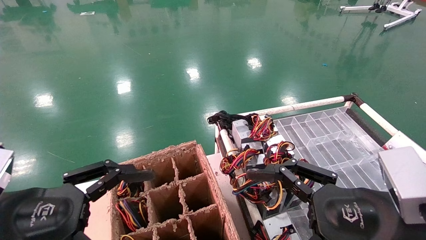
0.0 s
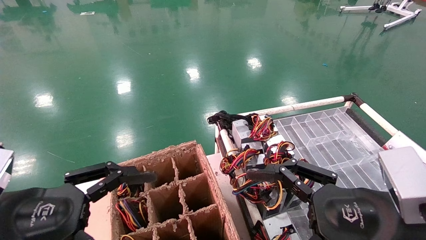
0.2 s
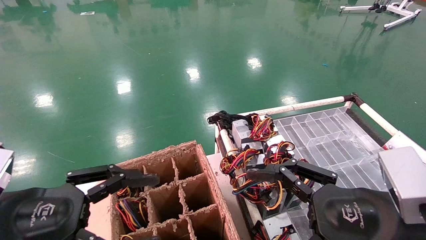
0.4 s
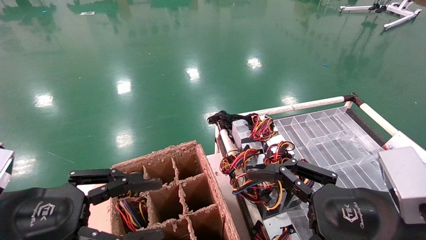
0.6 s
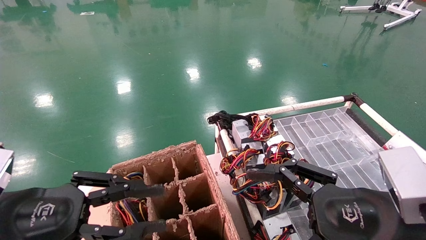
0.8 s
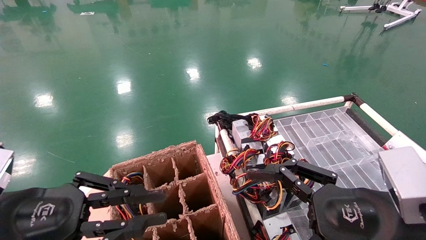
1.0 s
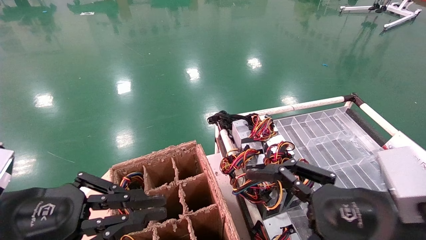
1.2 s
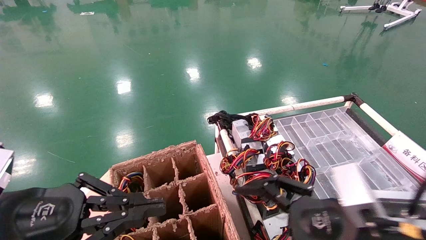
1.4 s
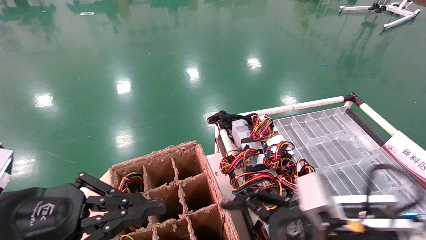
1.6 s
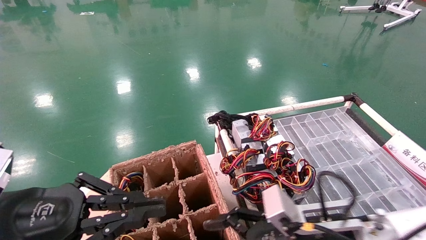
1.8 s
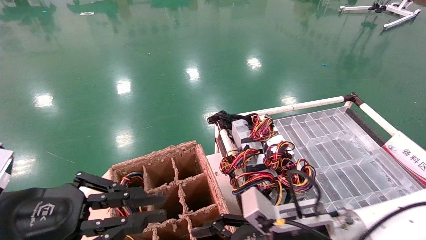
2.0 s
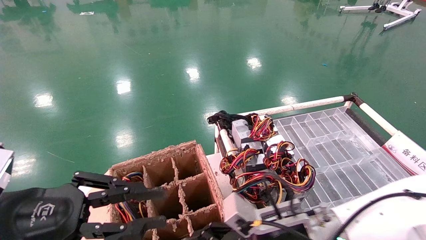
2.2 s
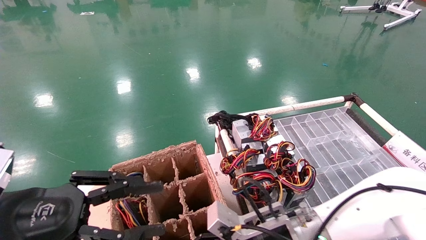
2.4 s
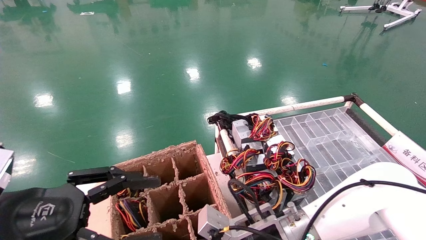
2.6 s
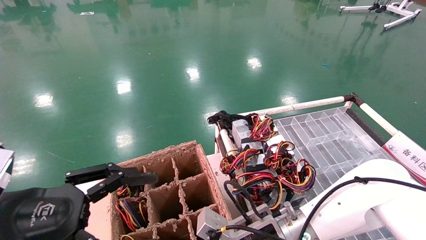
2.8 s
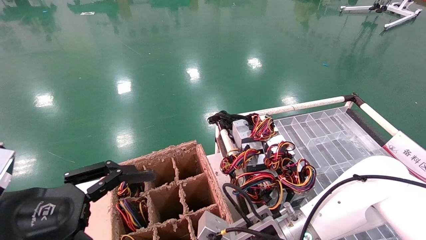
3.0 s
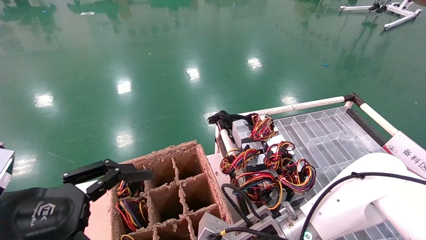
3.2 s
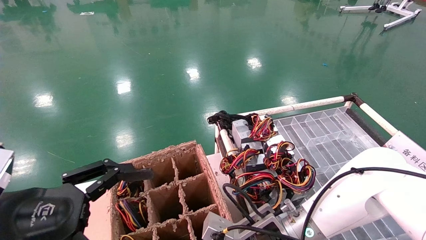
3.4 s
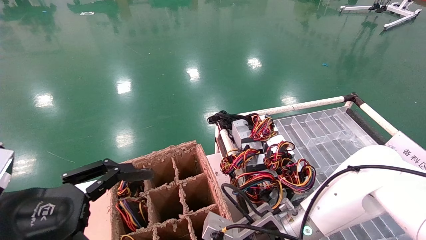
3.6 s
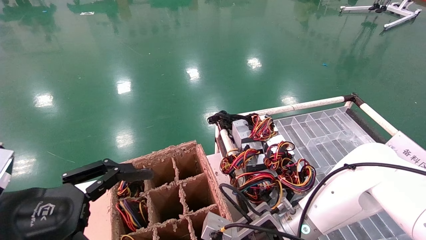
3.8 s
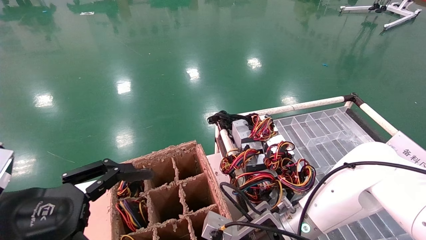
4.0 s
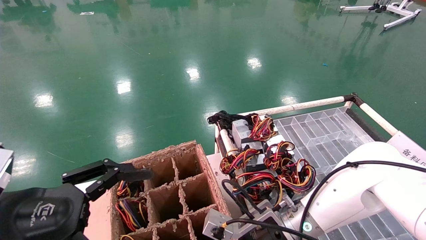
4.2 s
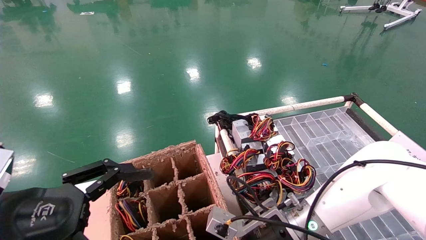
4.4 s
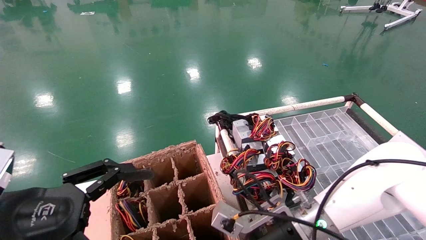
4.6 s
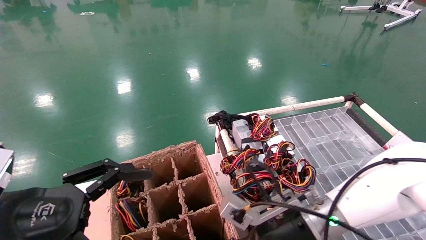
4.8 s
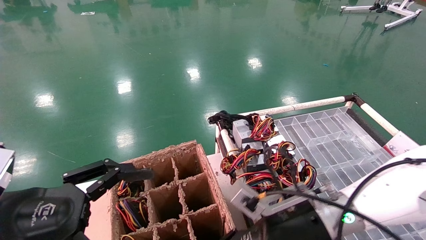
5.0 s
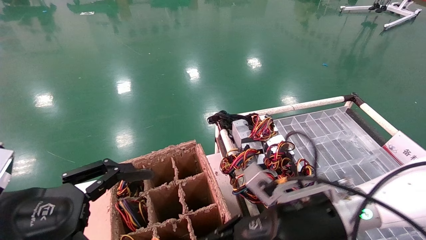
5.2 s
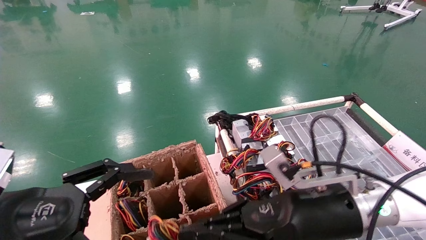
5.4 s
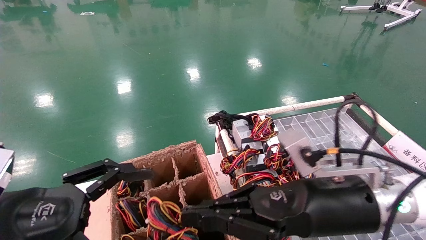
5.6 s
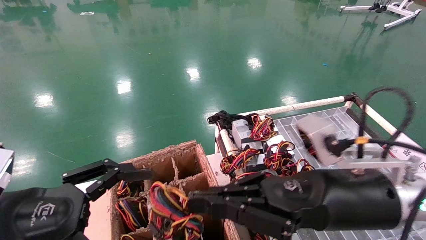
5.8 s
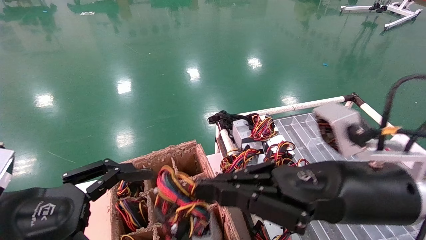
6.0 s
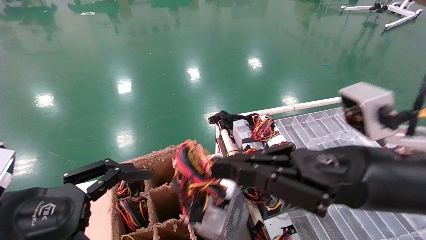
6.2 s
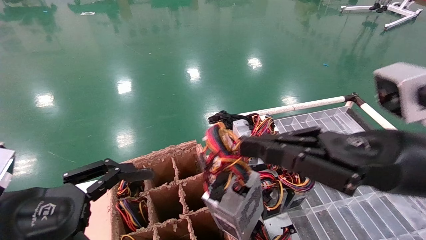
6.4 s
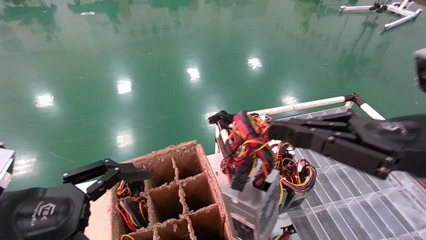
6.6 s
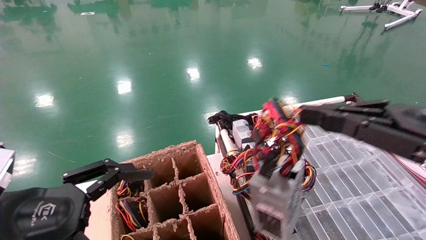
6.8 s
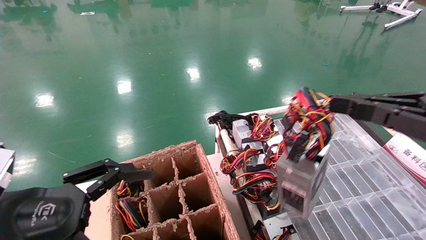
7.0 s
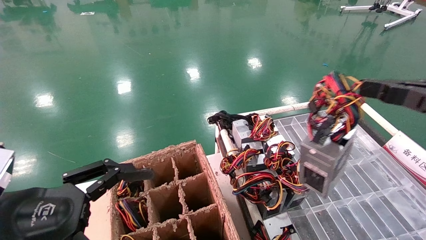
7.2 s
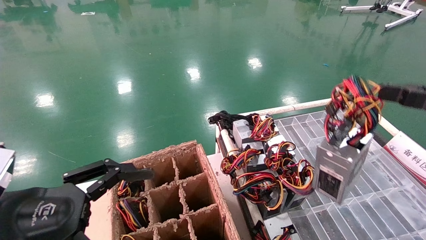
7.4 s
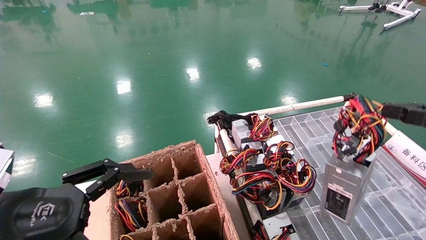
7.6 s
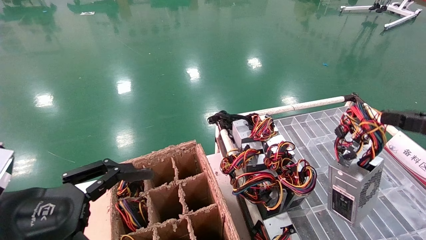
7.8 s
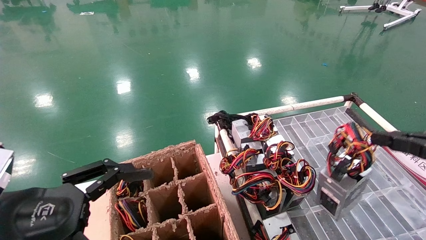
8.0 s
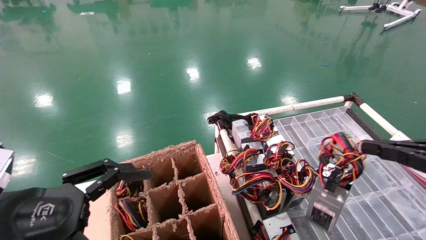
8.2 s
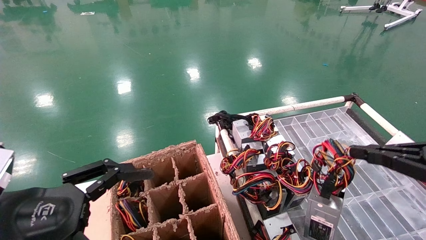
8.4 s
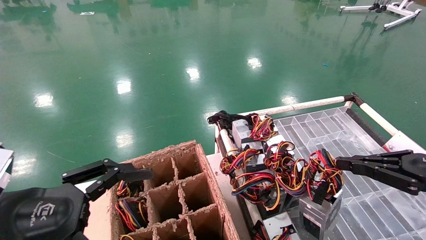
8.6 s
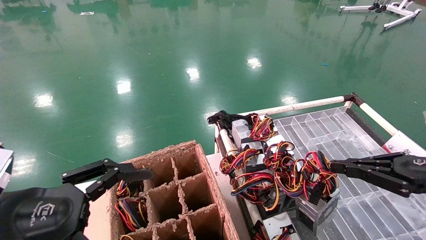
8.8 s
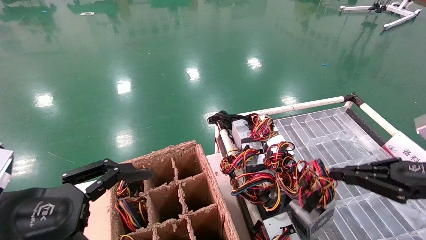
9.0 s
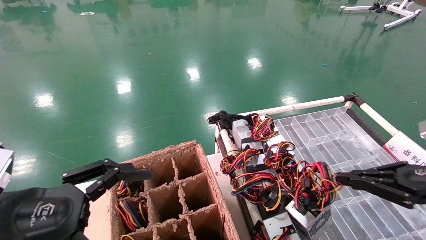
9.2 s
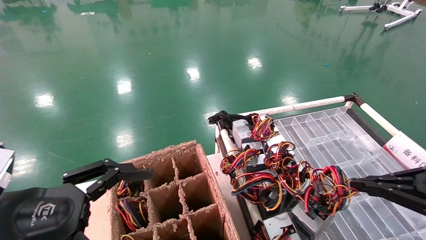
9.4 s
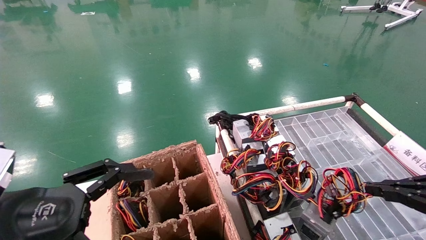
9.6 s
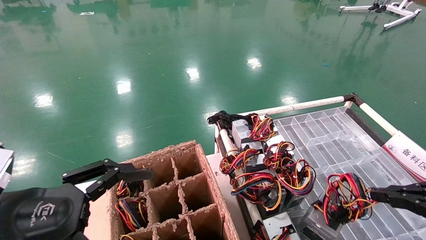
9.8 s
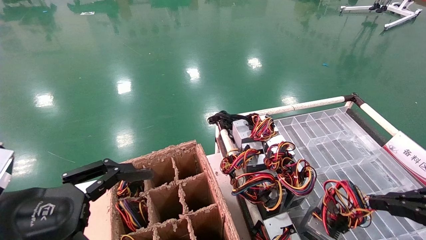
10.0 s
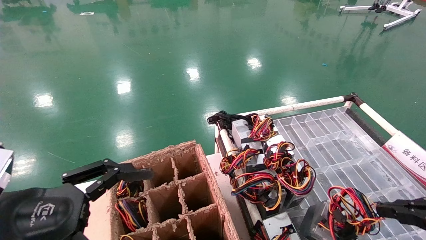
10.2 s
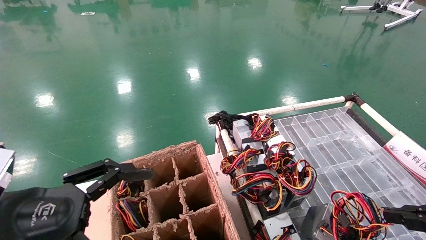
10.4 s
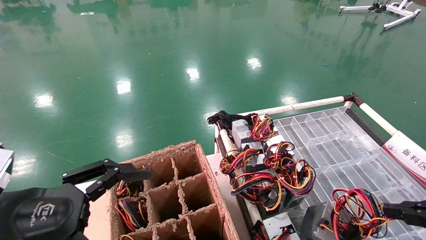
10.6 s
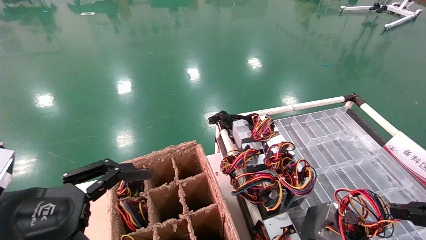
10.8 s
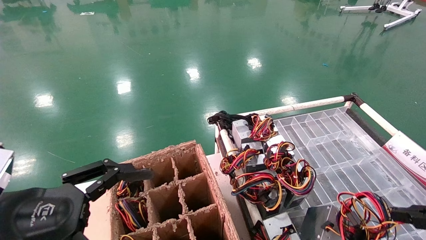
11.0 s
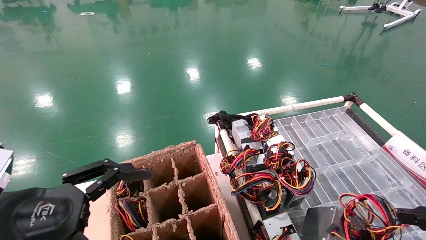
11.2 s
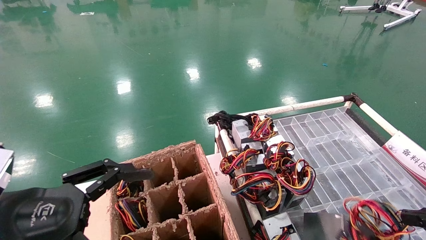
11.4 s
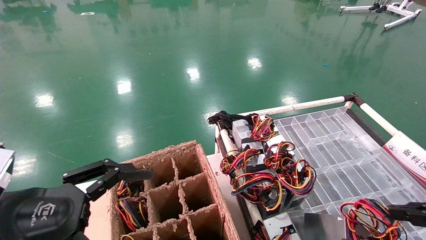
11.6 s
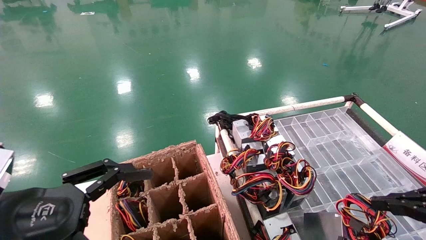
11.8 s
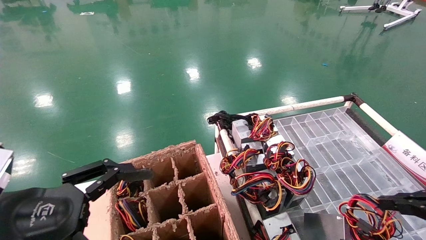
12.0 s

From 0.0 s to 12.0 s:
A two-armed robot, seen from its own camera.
Step, from 0.6 s to 4.2 s: Grab and lift the power supply from the large box.
From 0.0 s to 1.6 s: The right gripper travels forward and downward by about 10 cm; the left gripper closes its fingers.
From 1.6 s to 3.0 s: The right gripper goes about 15 cm to the left, forward and downward. The left gripper opens.
From 3.0 s to 4.4 s: The right gripper closes its fingers.
From 4.4 s to 6.0 s: The right gripper shifts some 15 cm upward, to the right and backward.
From 6.0 s to 7.6 s: The right gripper is displaced to the right by roughly 25 cm.
From 7.6 s to 9.0 s: The right gripper shifts about 10 cm downward and forward.
From 9.0 s to 10.4 s: The right gripper moves backward, some 5 cm.
From 10.4 s to 12.0 s: The grippers make only small movements.

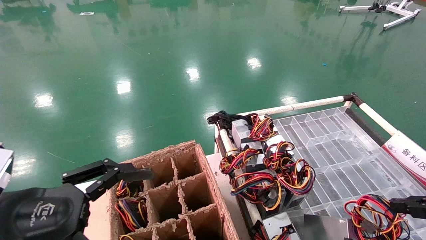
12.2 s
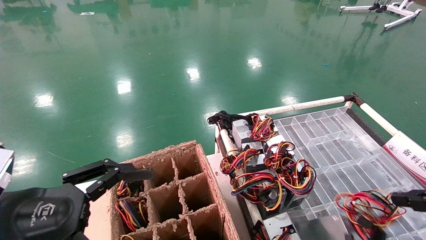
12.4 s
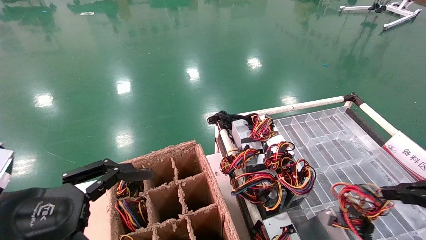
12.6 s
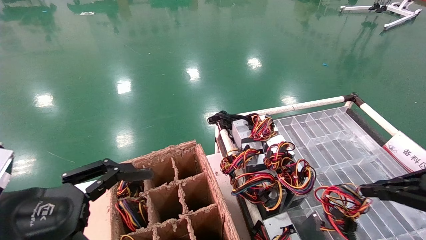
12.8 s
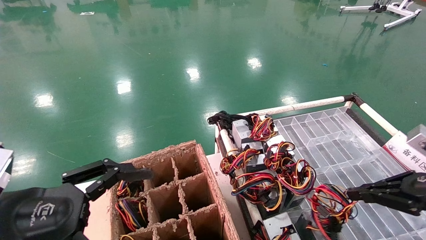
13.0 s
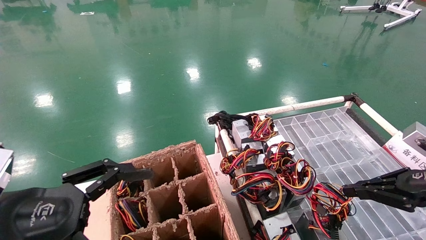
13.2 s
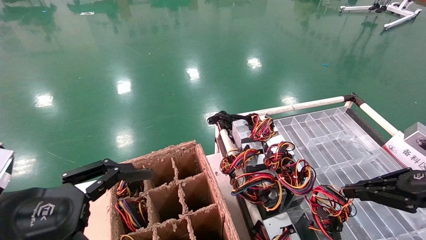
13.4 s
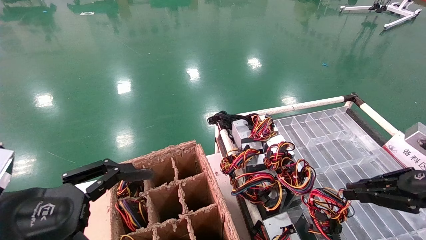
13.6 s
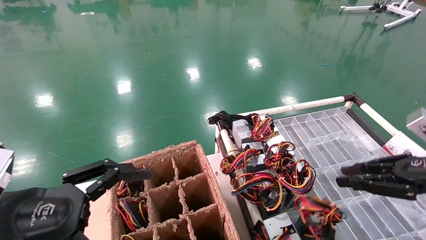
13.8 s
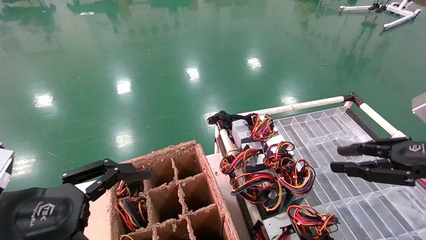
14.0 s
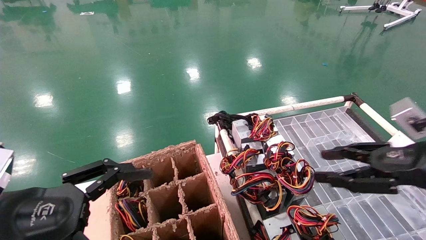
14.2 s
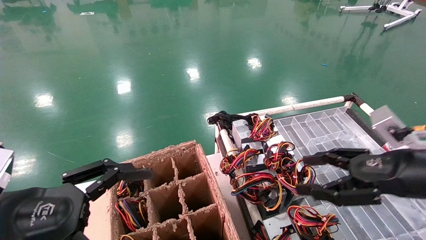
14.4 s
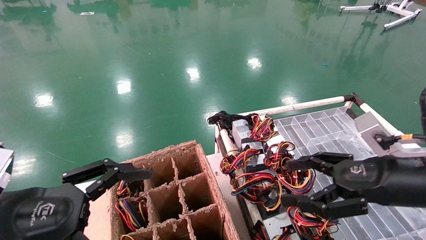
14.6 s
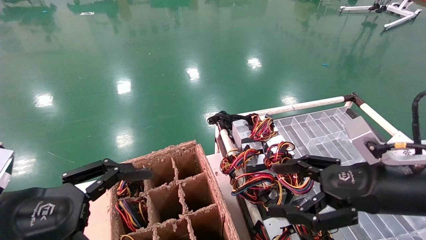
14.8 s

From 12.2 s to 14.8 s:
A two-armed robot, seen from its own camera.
From 12.2 s to 13.4 s: The right gripper moves forward and to the left, about 10 cm.
From 13.4 s to 14.8 s: The right gripper shifts roughly 10 cm to the left, and opens up.

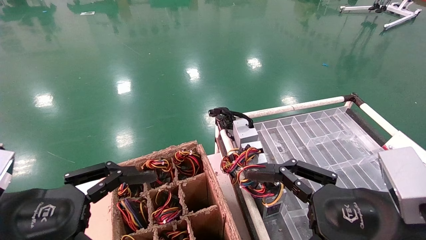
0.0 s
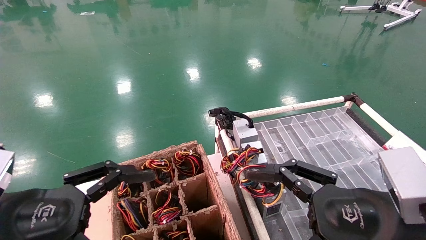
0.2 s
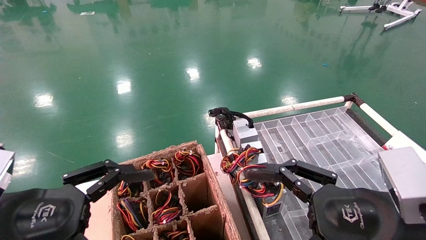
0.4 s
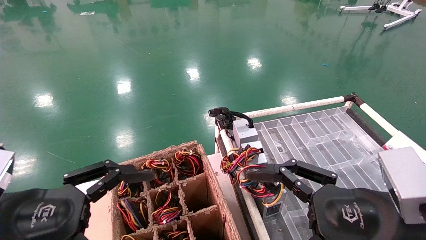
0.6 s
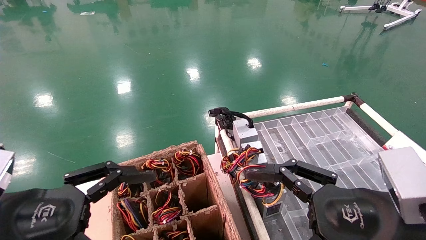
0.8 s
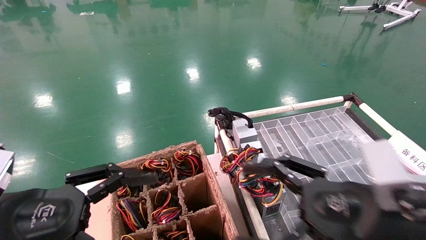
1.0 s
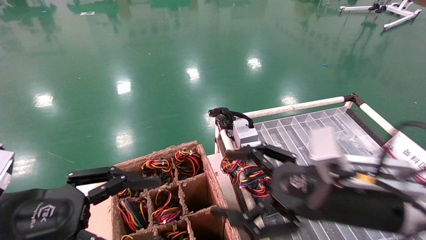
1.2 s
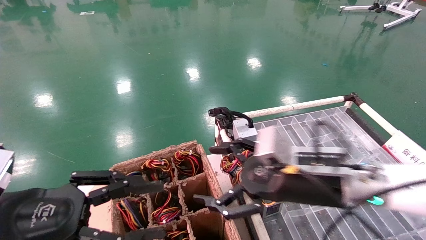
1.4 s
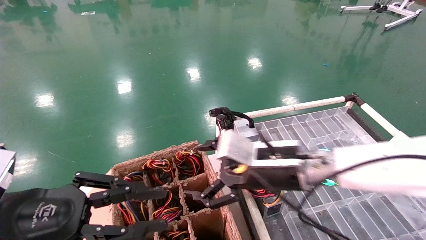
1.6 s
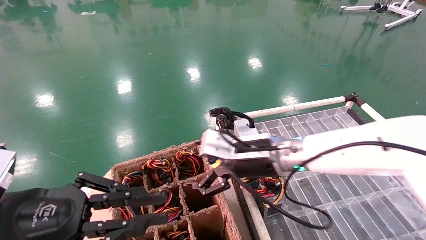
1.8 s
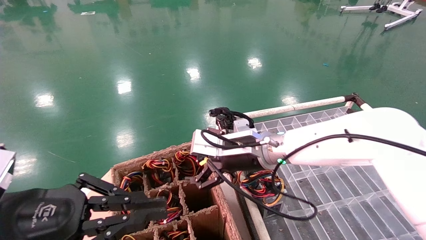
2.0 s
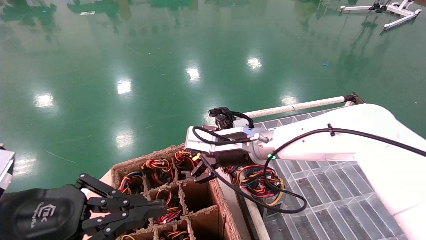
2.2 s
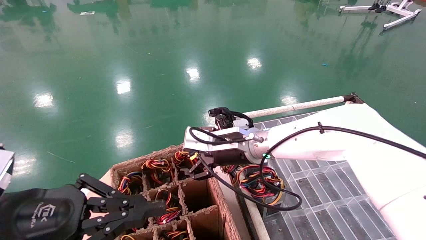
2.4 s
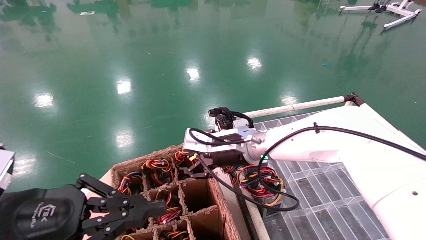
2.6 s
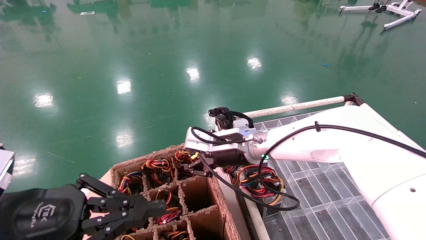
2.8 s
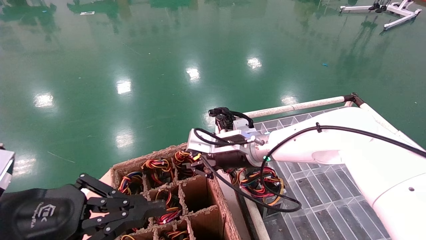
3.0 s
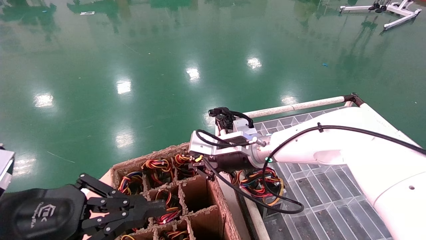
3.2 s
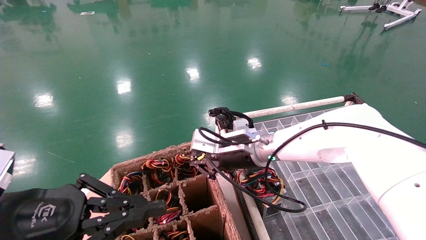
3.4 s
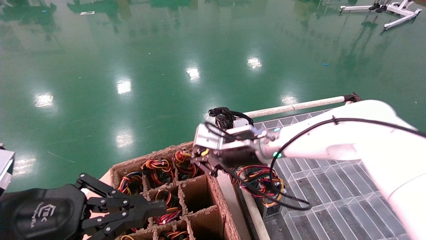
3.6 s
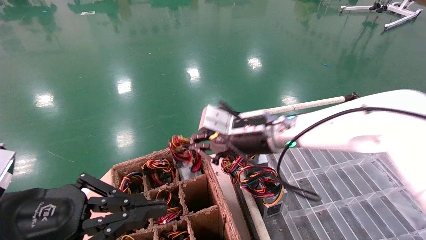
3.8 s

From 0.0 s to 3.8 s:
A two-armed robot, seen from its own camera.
Step, from 1.2 s to 3.4 s: Grab and lift the power supply from the large box.
From 0.0 s to 1.2 s: The right gripper moves forward, about 5 cm.
From 1.2 s to 2.6 s: The left gripper closes its fingers. Meanwhile the right gripper travels forward and to the left by roughly 20 cm.
From 2.6 s to 3.8 s: The right gripper moves some 5 cm, and closes up.
